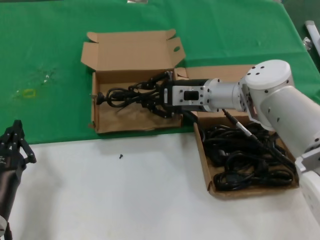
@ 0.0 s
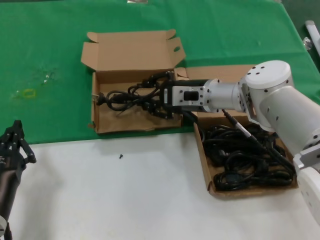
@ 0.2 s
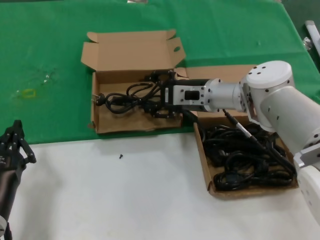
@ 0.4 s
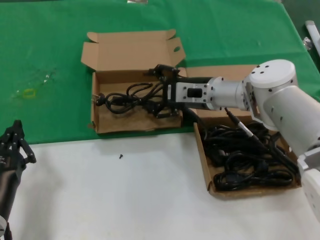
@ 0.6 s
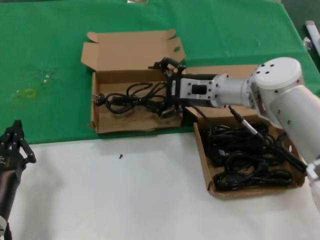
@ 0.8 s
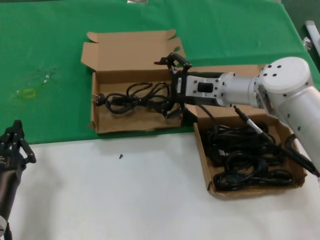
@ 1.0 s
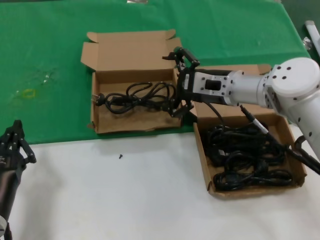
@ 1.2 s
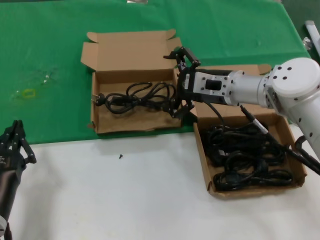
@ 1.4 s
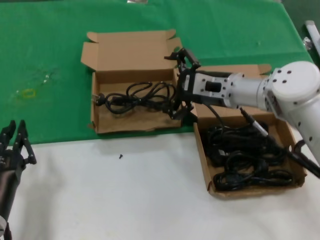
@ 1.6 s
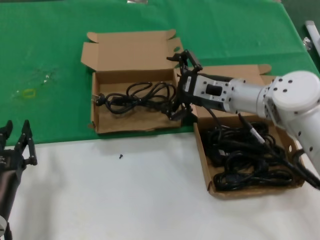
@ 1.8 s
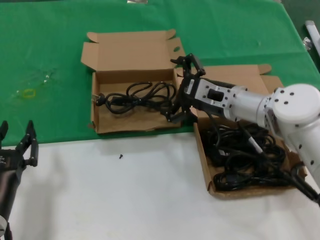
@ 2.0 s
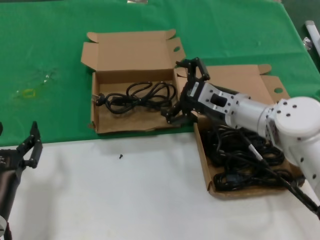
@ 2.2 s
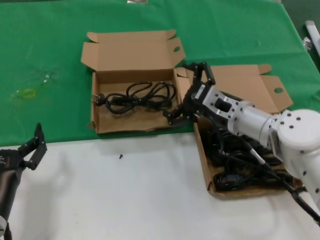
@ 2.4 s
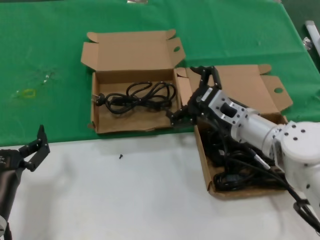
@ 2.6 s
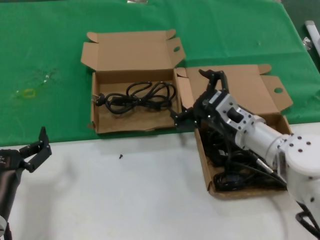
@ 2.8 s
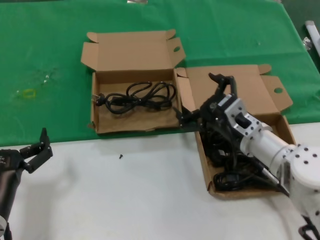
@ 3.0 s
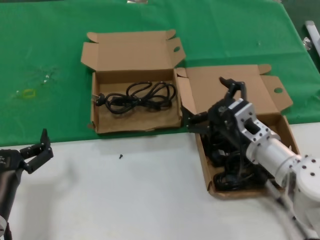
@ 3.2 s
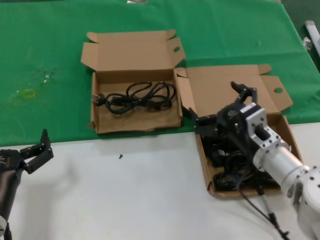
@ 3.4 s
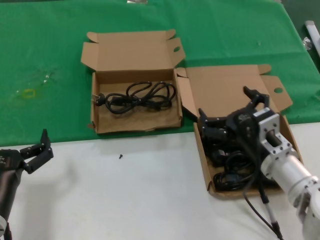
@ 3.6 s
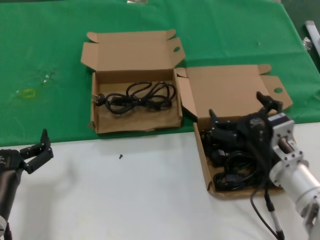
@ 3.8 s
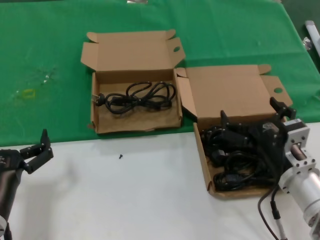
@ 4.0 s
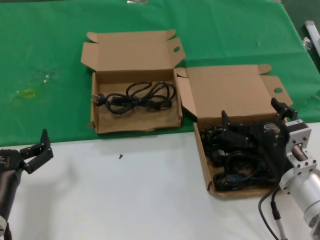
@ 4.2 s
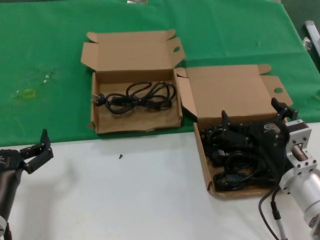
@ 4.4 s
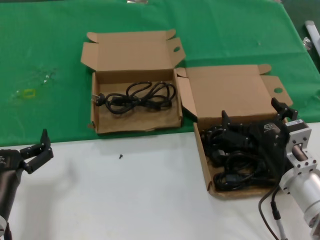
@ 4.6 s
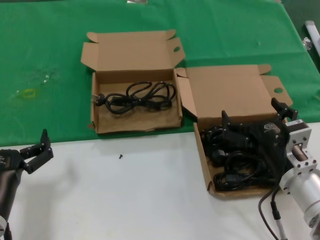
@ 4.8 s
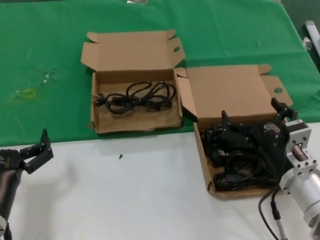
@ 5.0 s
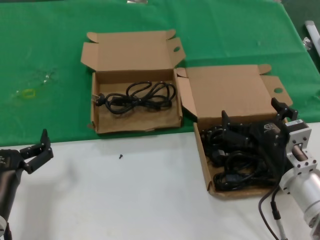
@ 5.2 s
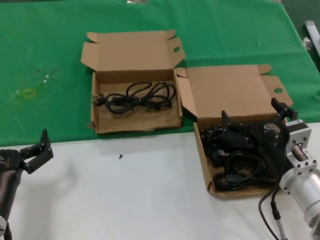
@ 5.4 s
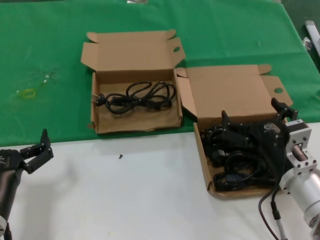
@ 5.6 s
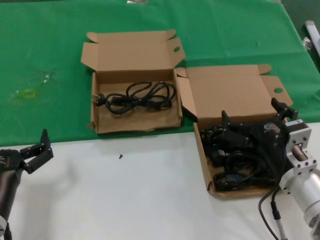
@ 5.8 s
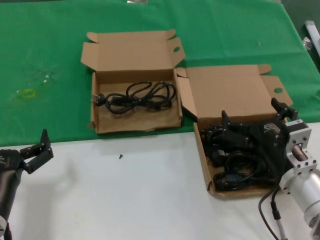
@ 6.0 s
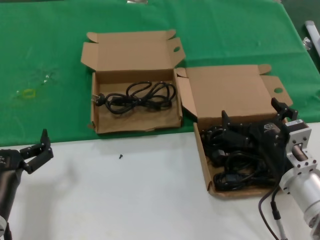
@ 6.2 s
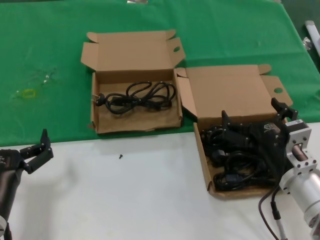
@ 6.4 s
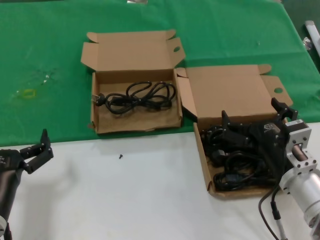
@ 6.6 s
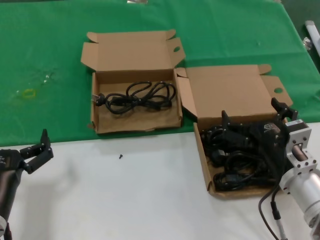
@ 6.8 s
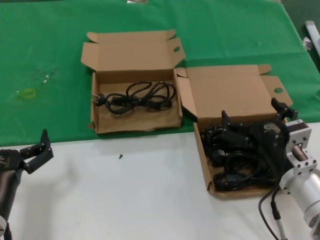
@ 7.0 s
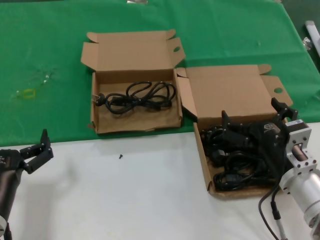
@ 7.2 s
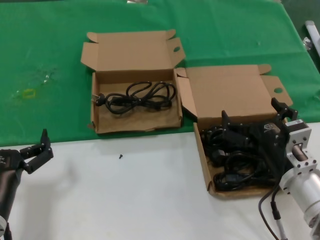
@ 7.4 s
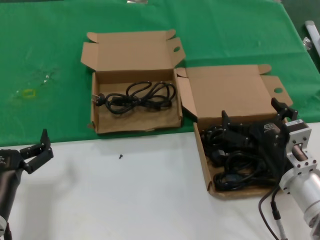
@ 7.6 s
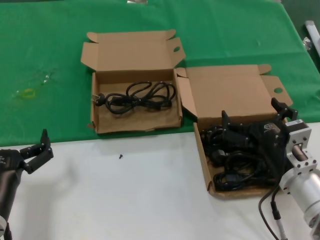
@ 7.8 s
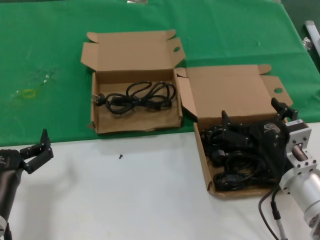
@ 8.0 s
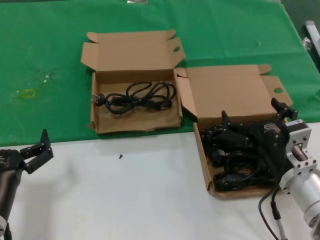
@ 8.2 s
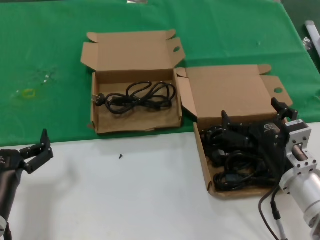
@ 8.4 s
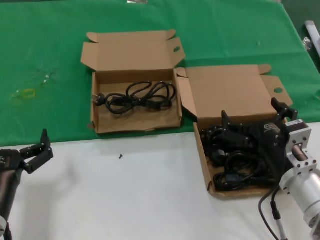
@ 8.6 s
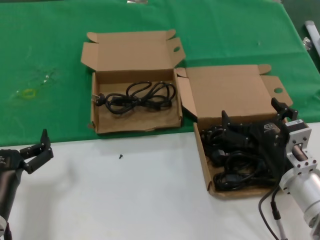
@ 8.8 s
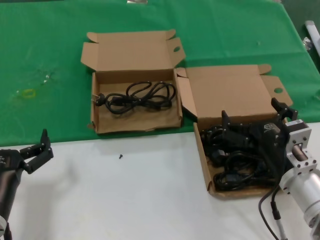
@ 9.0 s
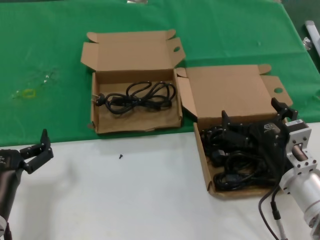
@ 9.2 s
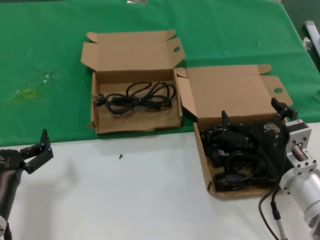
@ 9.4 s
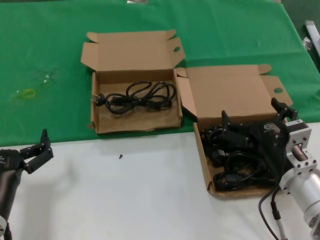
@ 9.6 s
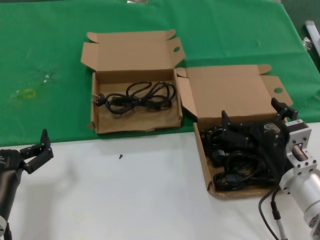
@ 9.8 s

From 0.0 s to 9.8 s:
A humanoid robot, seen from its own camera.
Task of the whole recording: take the parts from the box containing them and put them into an empty box.
From 0.0 s to 1.4 s: The right hand ends up approximately 5 cm from where it was.
From 1.4 s to 2.8 s: The right hand travels backward and downward by approximately 10 cm.
From 2.8 s to 4.2 s: The right hand goes approximately 10 cm backward.
From 4.2 s to 9.8 s: Both hands stay about where they are.

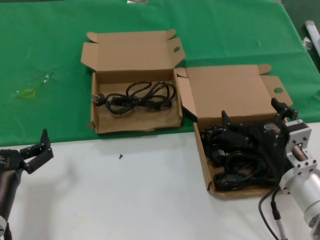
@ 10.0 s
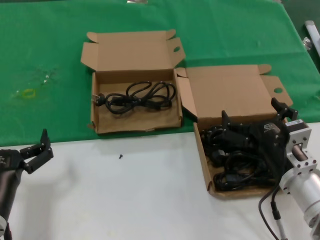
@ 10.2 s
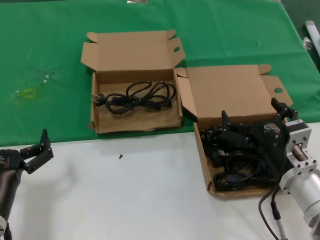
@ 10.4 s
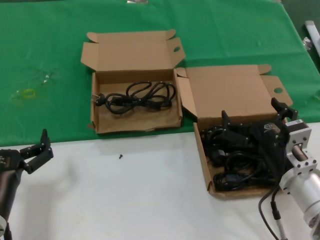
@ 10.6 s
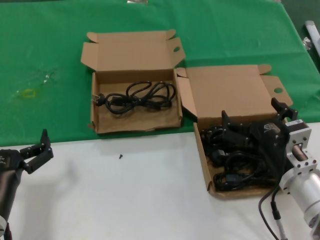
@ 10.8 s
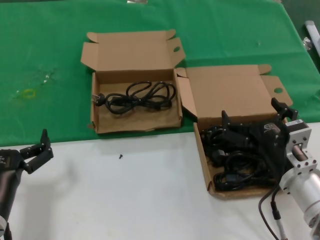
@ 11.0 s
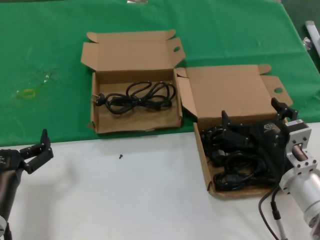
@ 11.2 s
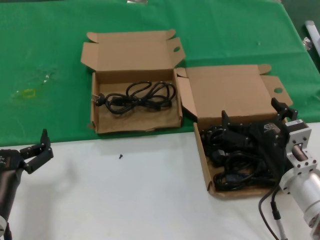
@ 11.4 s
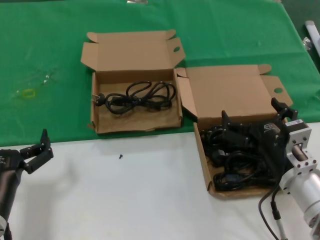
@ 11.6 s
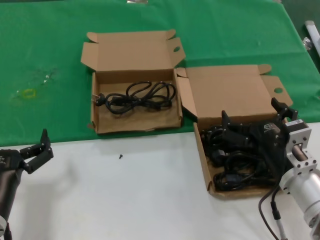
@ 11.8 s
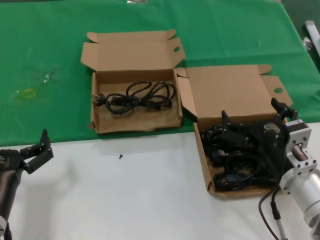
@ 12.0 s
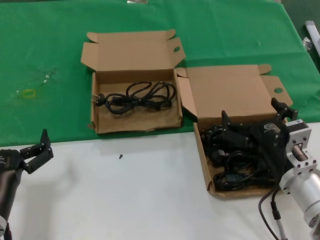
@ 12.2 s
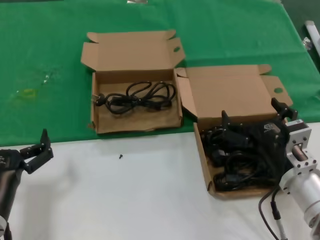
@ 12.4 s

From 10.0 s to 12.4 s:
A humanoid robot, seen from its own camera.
Task of the whole recording: take the parts from the box containing them and put them into an empty box.
From 10.0 s to 12.4 s: Both hands stay put.
